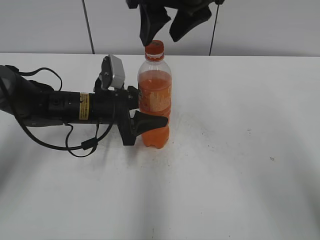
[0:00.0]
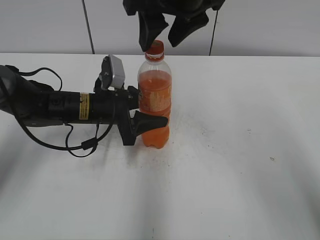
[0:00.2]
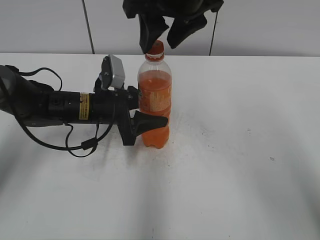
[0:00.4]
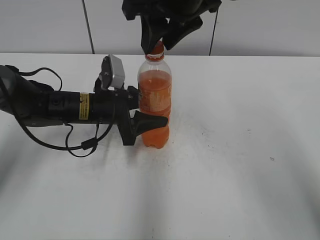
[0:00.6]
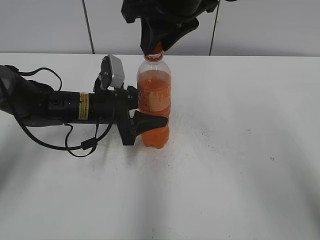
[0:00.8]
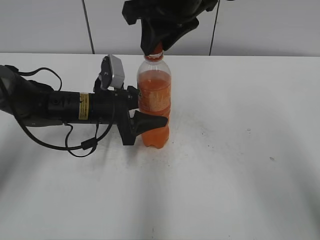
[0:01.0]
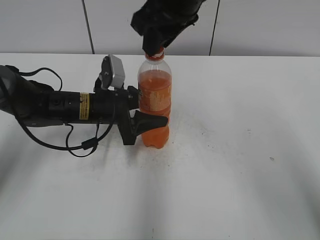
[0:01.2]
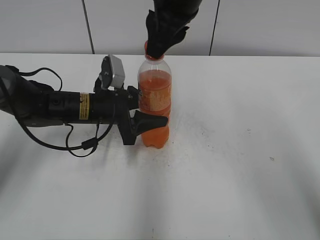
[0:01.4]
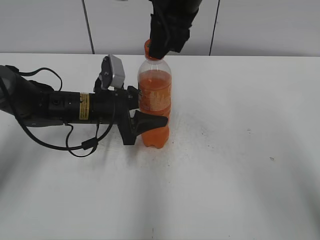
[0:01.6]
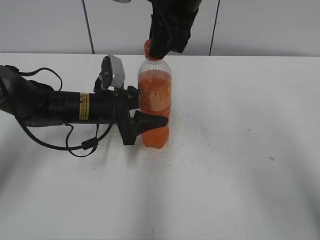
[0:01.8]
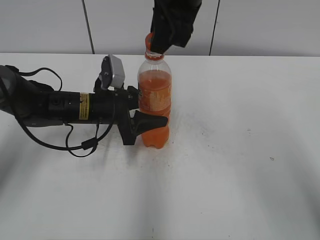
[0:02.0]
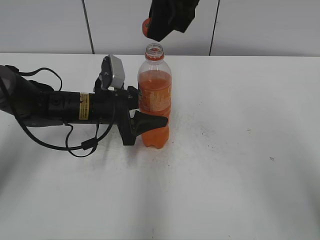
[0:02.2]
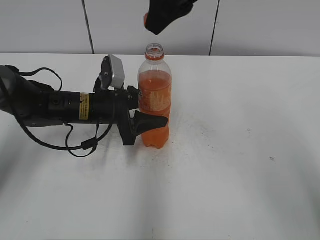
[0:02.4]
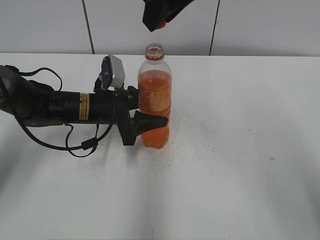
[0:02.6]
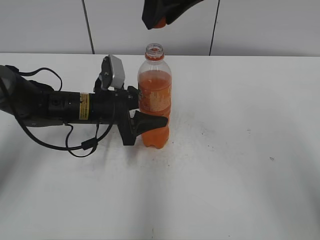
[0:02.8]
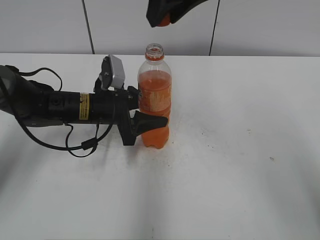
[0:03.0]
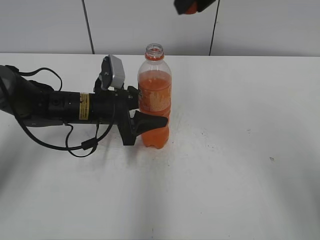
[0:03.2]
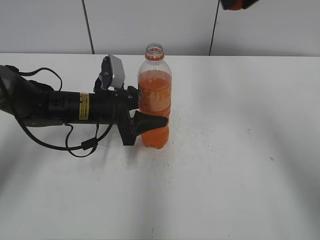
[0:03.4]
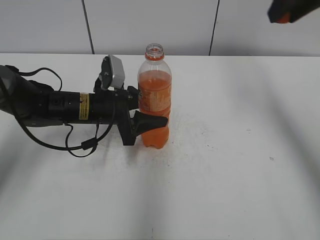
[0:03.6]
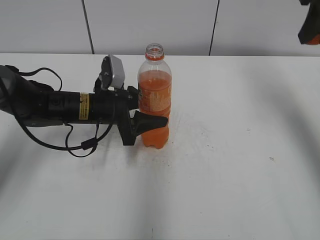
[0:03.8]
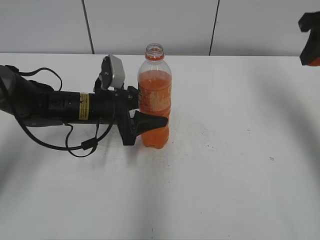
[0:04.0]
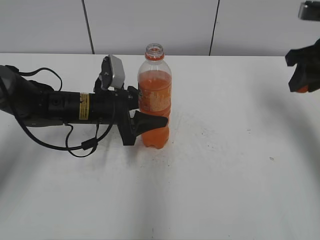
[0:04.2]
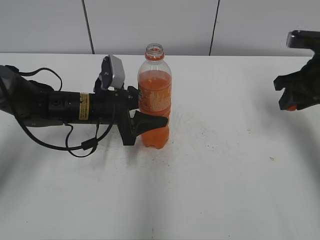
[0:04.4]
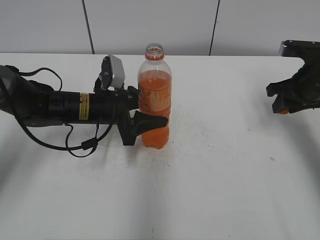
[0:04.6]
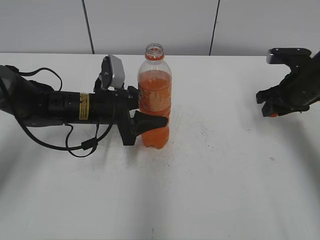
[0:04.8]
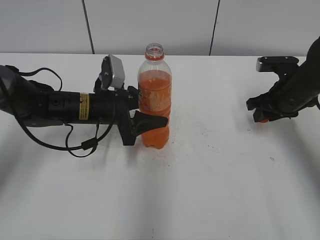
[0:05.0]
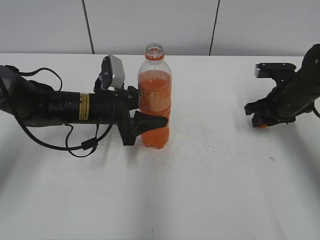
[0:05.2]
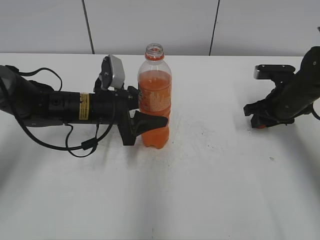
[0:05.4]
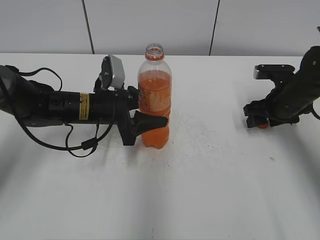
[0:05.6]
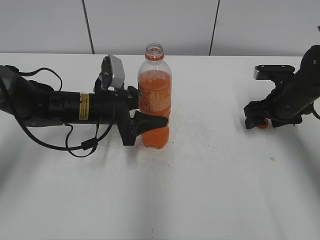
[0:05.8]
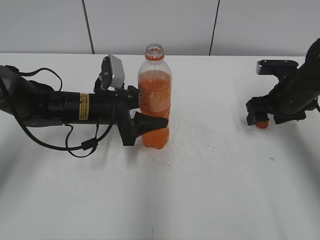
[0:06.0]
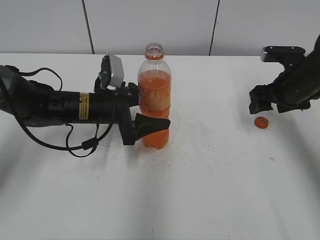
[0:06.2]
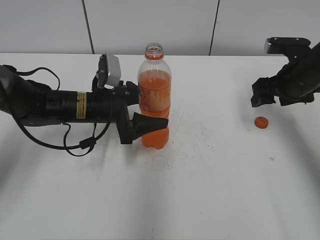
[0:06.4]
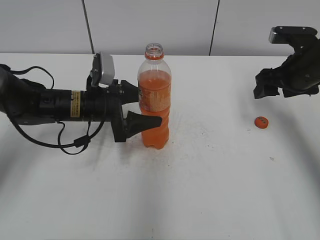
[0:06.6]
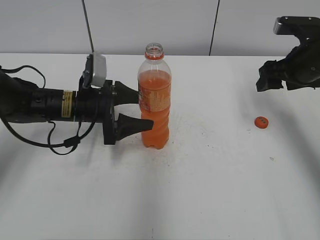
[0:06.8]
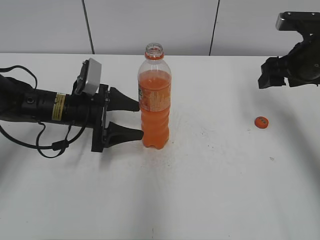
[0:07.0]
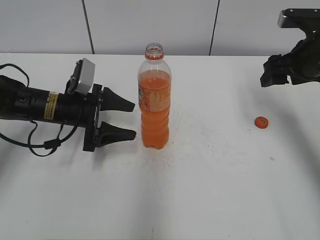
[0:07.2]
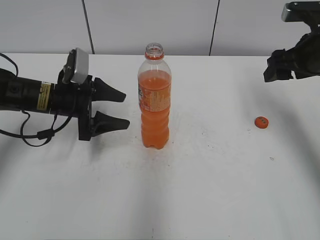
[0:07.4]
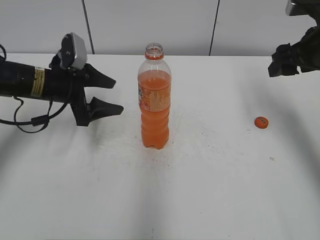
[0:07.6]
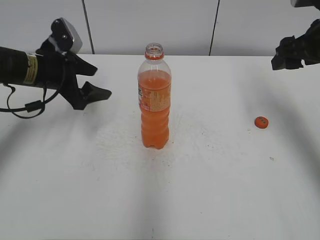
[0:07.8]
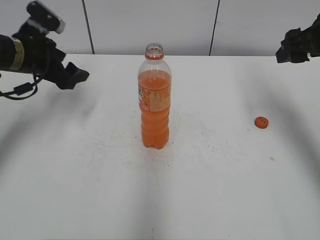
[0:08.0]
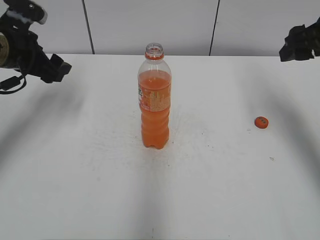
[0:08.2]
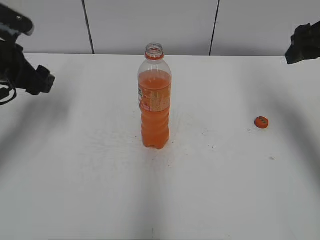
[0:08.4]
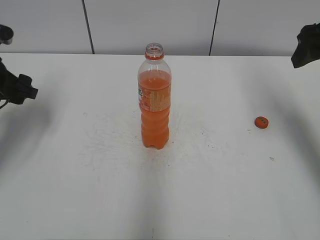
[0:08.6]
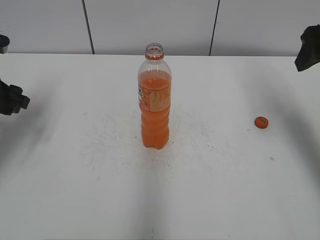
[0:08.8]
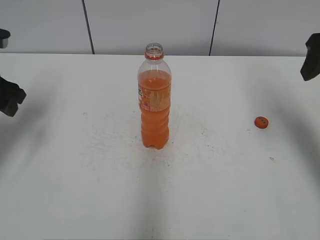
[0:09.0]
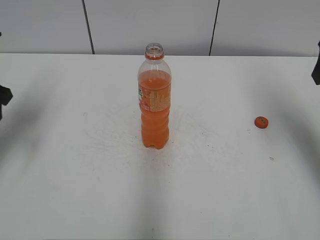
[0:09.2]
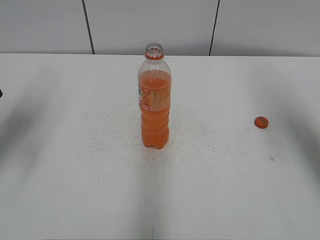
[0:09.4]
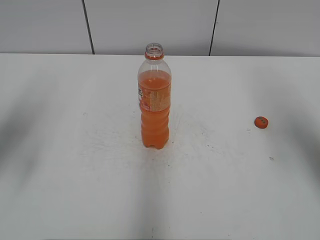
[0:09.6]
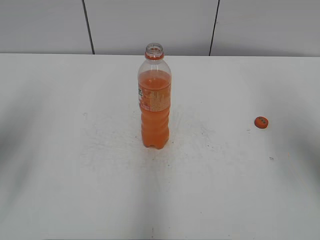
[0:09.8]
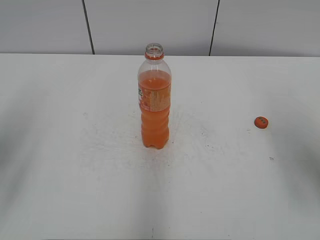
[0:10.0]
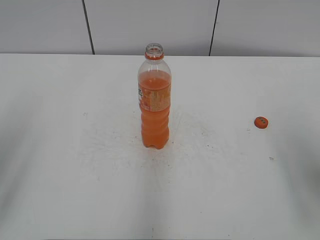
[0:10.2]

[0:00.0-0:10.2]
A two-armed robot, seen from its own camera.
Step, 0:00.0 to 0:02.0: Twist the bottle cap with the right hand.
Step, 0:02.2 to 0:05.6: Place the bottle cap on the right.
0:00.0 to 0:01.4: The right gripper closes.
0:01.4 to 0:03.0: The right gripper changes place by approximately 5 cm.
0:03.0 to 0:04.4: The right gripper shifts approximately 30 cm to the right and downward.
0:04.4 to 0:05.8: The right gripper goes roughly 10 cm downward, and opens.
0:05.8 to 0:07.2: The left gripper heads to the left, covering roughly 5 cm, while the right gripper goes approximately 10 cm upward.
0:07.2 to 0:08.8: The right gripper heads upward, covering some 10 cm, while the left gripper is displaced to the left and upward by some 15 cm.
0:08.8 to 0:10.2: The left gripper moves backward and upward, roughly 20 cm. Meanwhile the right gripper is displaced backward by about 15 cm.

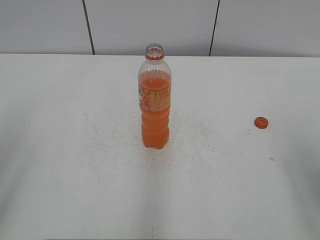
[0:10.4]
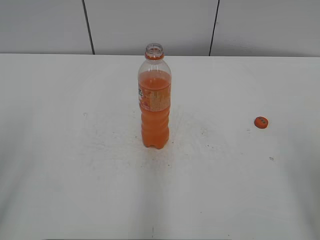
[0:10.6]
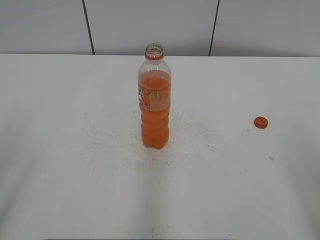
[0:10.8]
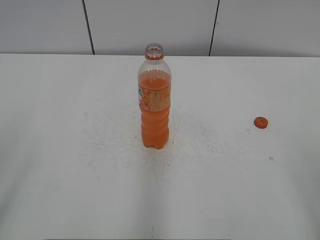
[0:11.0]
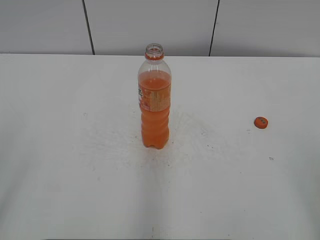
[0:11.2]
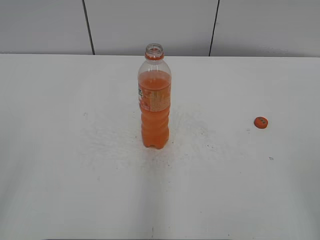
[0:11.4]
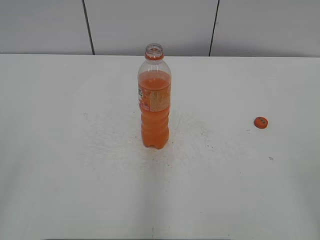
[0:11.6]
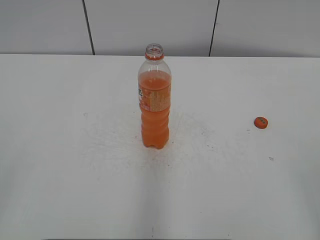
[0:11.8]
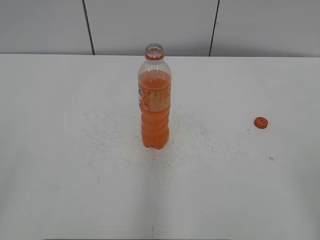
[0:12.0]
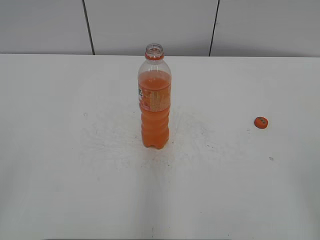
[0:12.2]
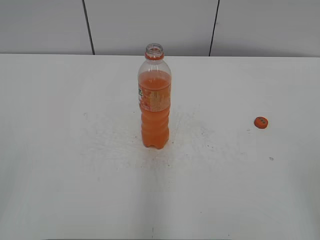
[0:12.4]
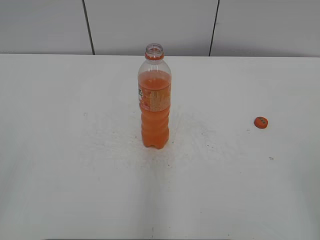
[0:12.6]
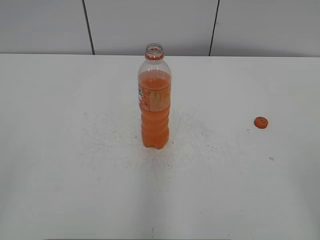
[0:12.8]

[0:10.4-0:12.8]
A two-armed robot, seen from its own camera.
0:11.6 to 0:12.8: Neither gripper changes place.

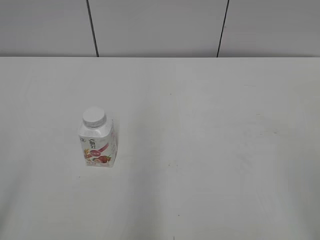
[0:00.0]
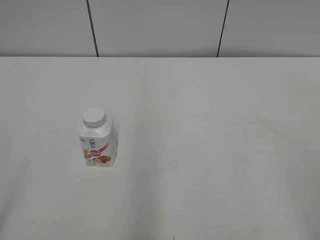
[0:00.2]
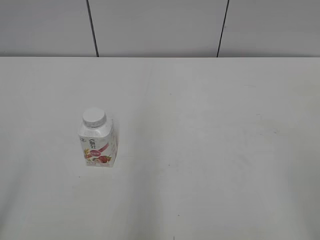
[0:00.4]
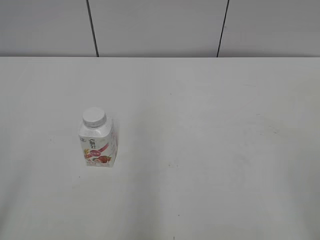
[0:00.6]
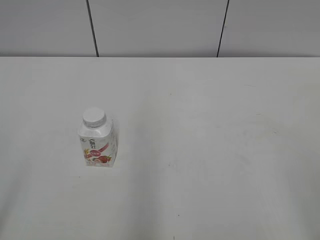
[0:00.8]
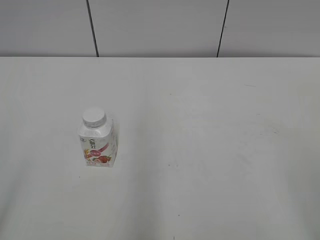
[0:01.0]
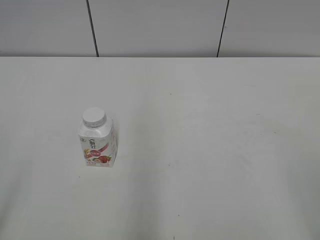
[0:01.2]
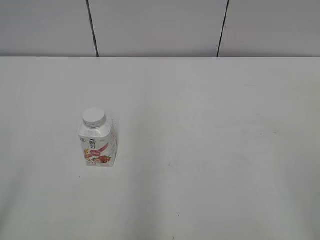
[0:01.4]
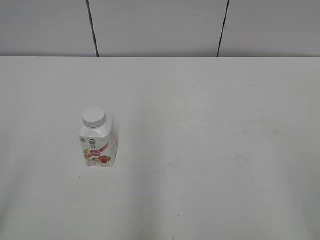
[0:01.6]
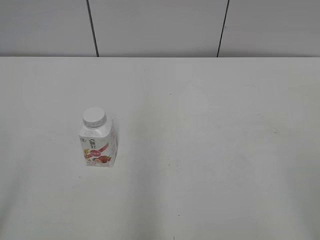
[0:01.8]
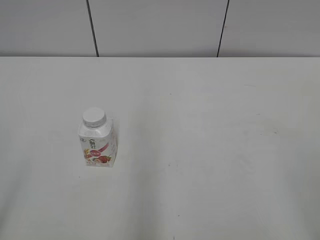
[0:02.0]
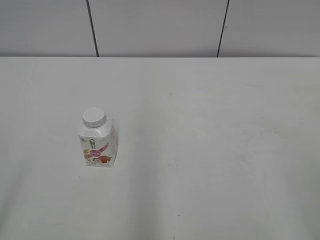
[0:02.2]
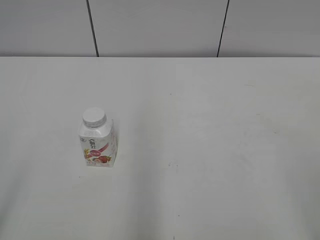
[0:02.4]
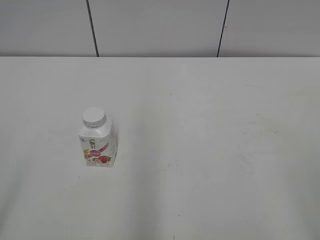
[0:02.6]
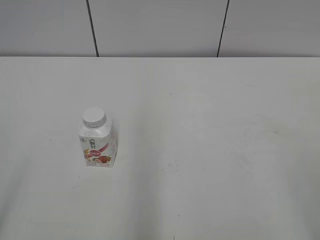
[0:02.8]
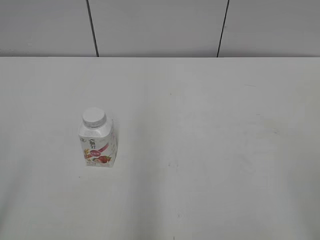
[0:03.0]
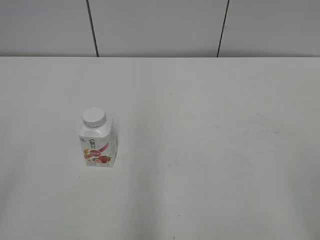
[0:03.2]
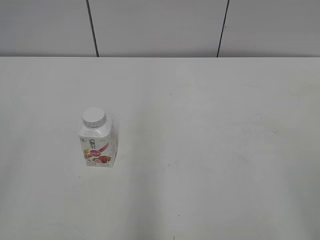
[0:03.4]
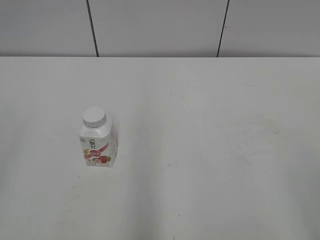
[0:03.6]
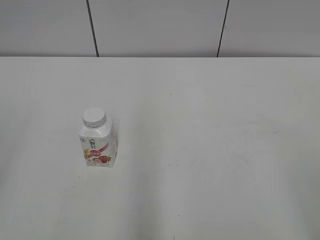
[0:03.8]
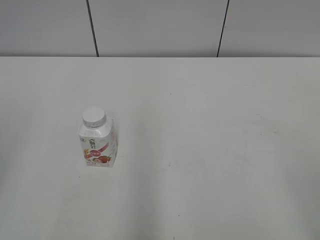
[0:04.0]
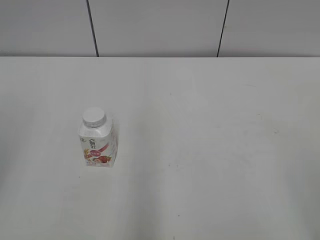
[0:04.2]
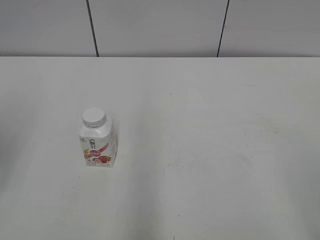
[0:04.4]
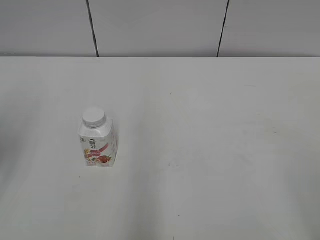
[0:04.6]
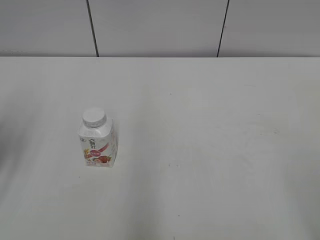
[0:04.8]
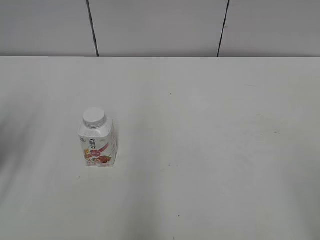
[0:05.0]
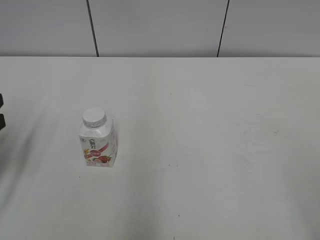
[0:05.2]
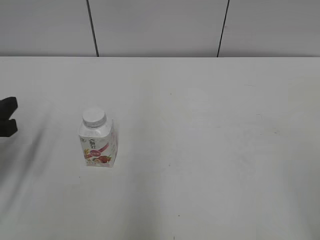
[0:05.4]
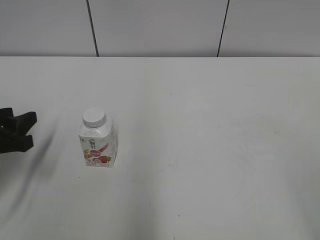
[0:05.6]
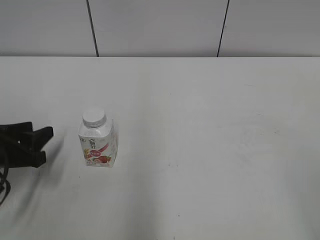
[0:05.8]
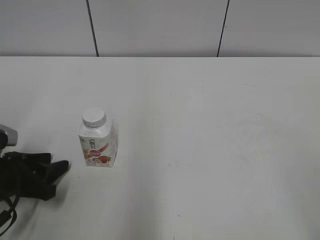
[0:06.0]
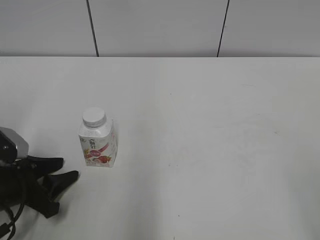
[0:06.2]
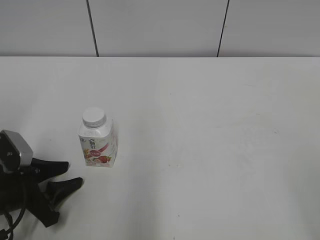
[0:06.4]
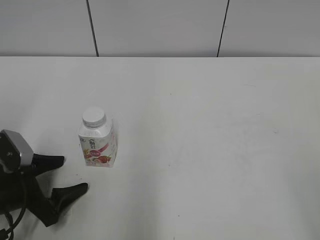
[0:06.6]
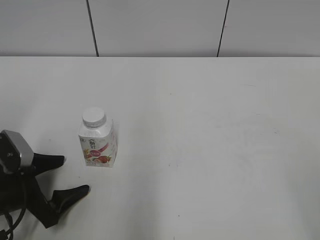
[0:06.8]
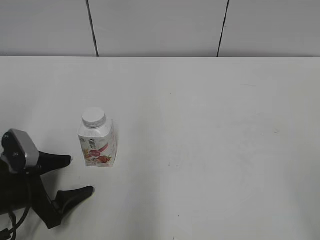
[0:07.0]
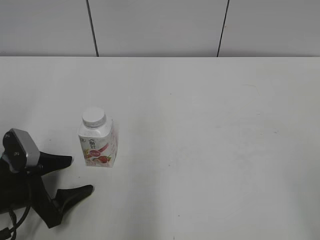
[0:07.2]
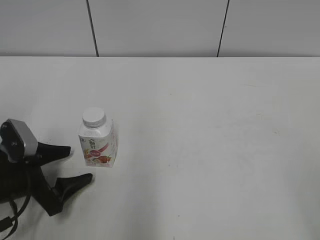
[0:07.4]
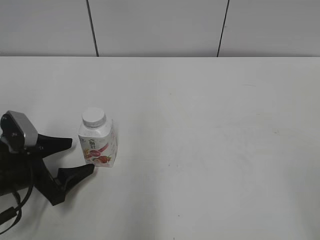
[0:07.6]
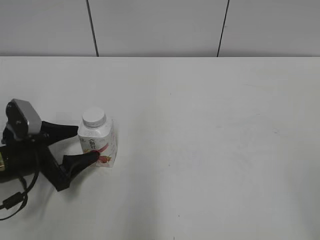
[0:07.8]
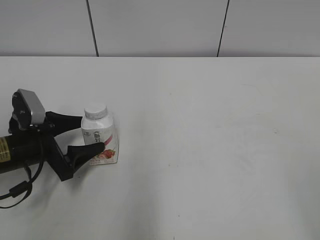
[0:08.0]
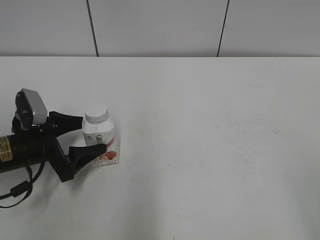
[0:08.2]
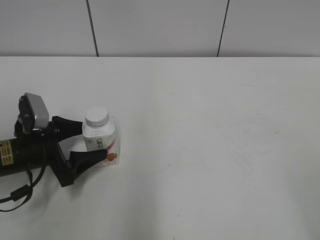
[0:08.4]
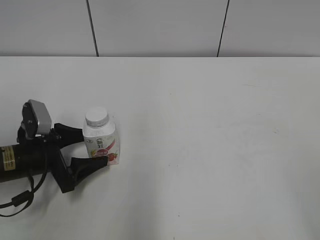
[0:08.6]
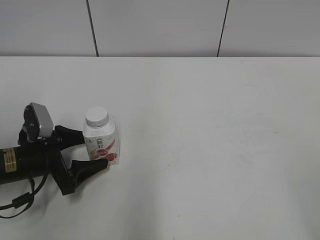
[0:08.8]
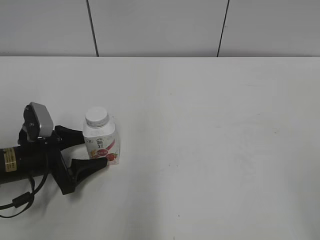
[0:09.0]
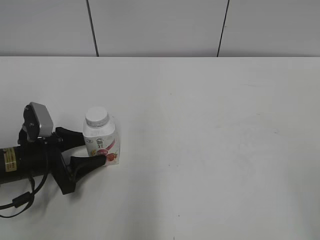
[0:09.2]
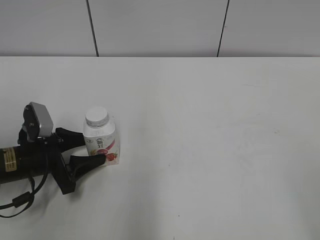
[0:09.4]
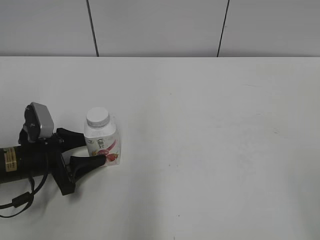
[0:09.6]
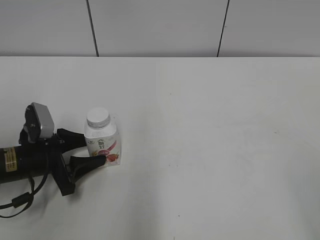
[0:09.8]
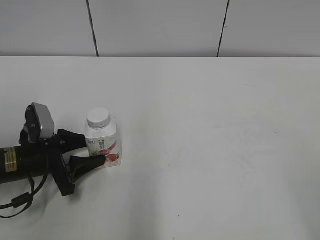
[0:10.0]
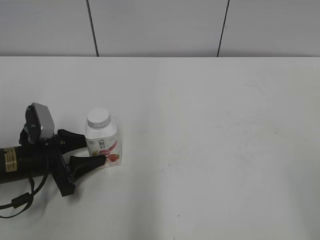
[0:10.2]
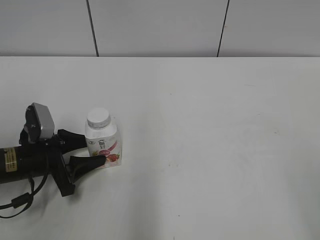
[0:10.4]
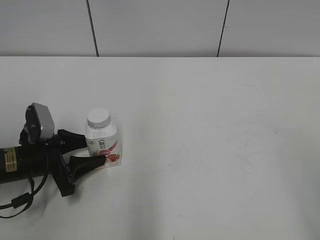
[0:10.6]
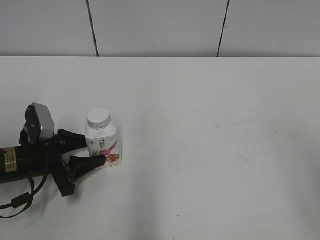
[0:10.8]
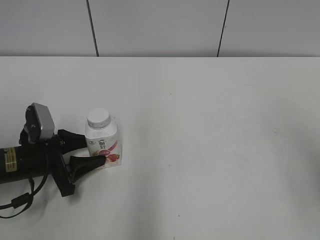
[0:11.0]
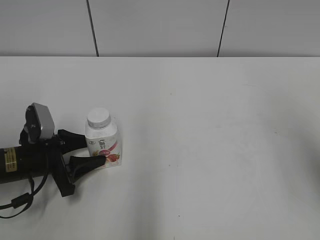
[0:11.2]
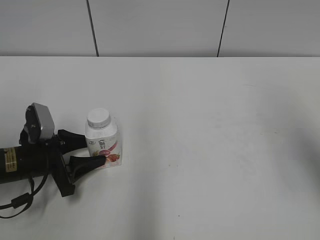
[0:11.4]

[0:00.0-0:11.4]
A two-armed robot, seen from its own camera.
Step, 0:00.0 to 0:10.0: Grab the Yili Changqing with the left hand.
0:01.4 to 0:02.8: The two grippers keep their place.
0:04.2 to 0:05.6: The left gripper is displaced downward and forward by roughly 20 cm.
0:05.6 to 0:07.2: The left gripper travels downward by about 10 cm, and opens up.
0:07.2 to 0:08.6: The left gripper moves forward, some 5 cm.
0:08.6 to 0:10.0: The left gripper closes its fingers.
0:10.0 to 0:11.4: The right gripper moves forward, approximately 20 cm.
